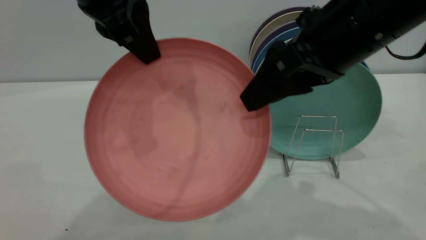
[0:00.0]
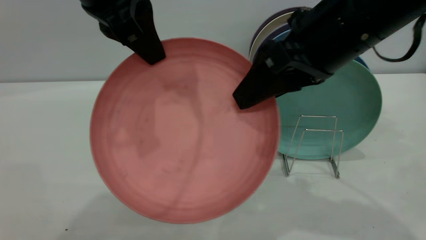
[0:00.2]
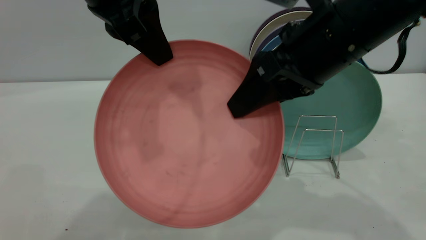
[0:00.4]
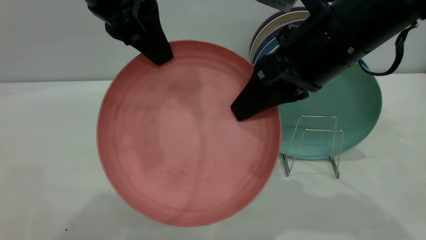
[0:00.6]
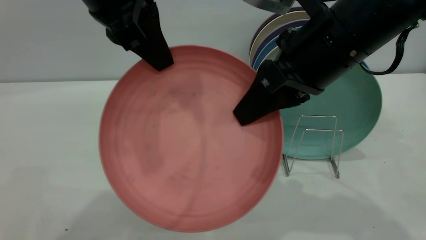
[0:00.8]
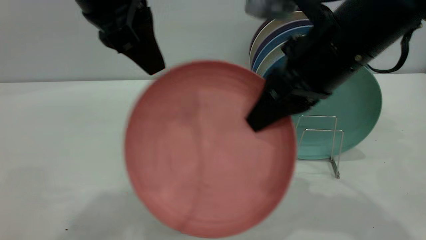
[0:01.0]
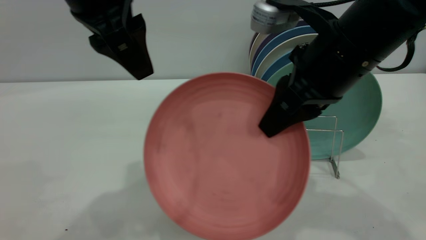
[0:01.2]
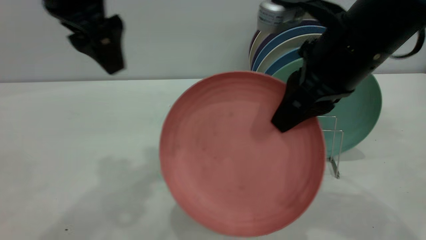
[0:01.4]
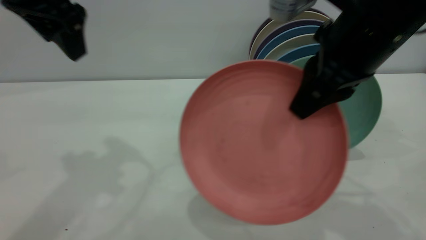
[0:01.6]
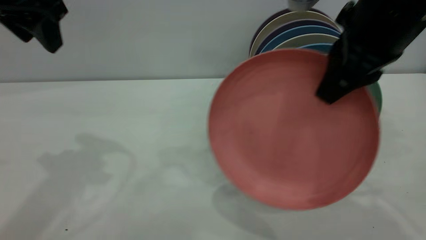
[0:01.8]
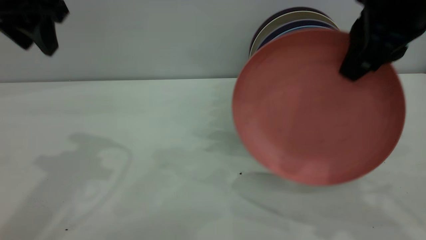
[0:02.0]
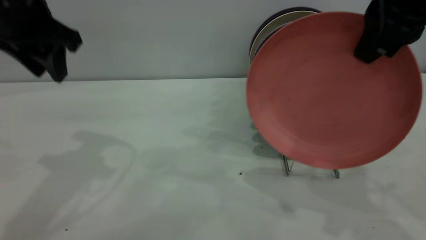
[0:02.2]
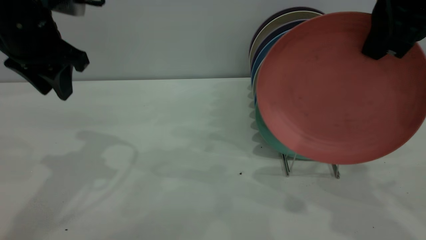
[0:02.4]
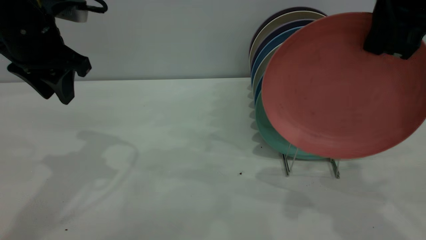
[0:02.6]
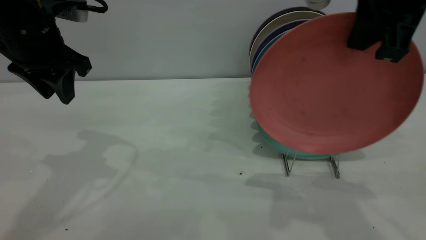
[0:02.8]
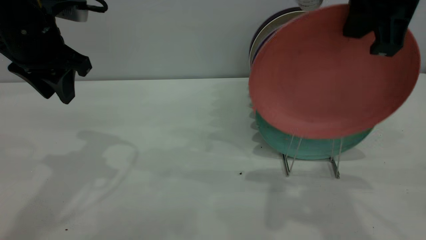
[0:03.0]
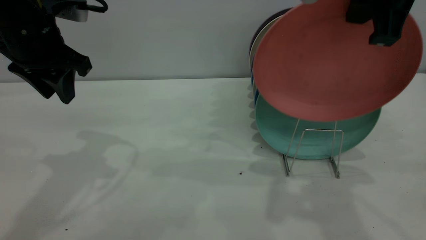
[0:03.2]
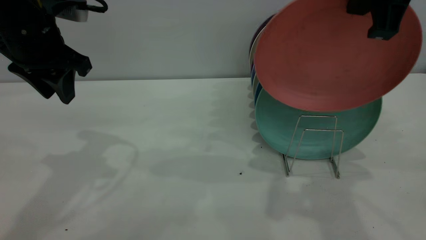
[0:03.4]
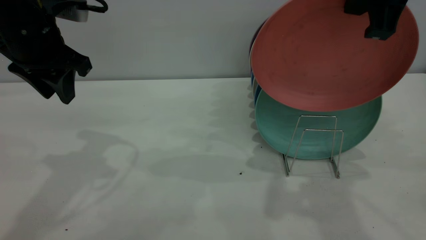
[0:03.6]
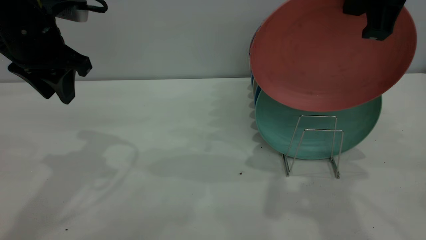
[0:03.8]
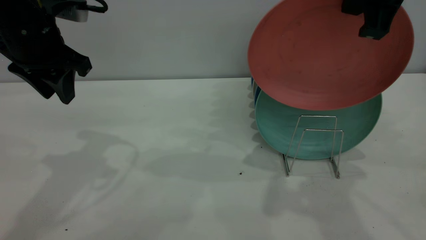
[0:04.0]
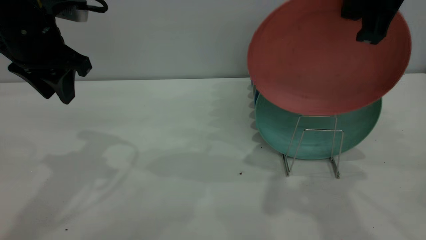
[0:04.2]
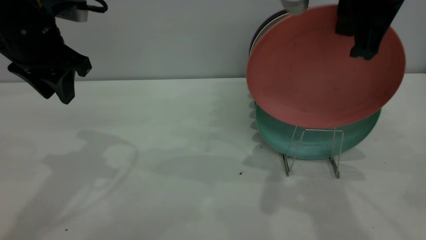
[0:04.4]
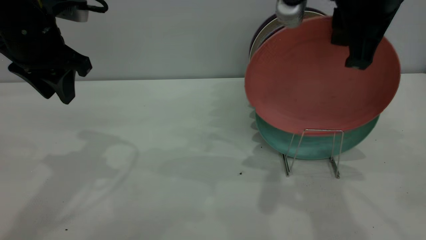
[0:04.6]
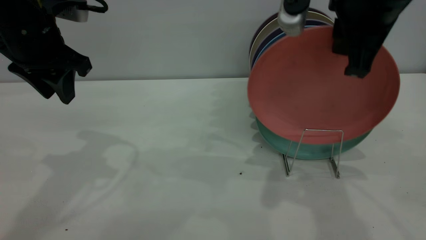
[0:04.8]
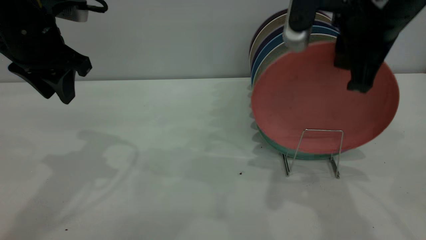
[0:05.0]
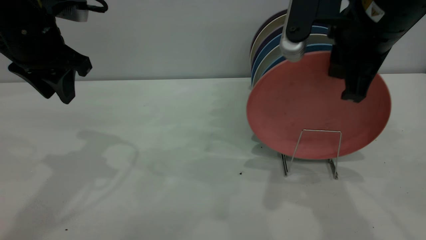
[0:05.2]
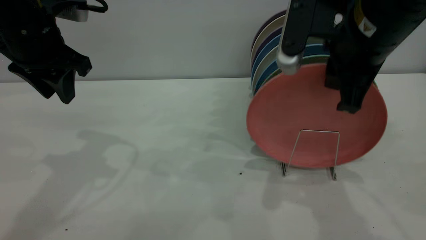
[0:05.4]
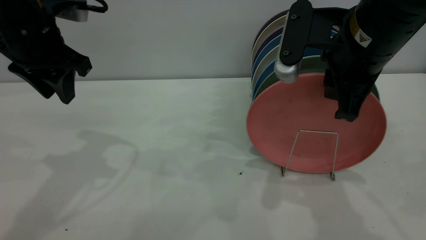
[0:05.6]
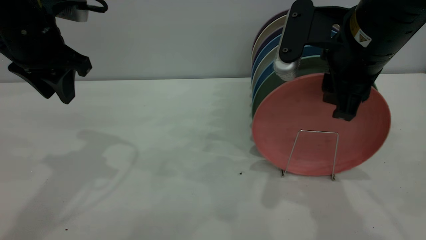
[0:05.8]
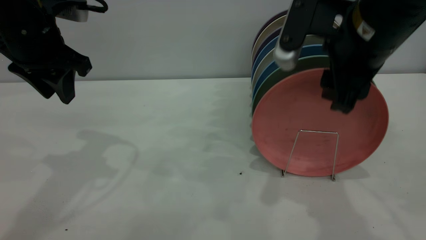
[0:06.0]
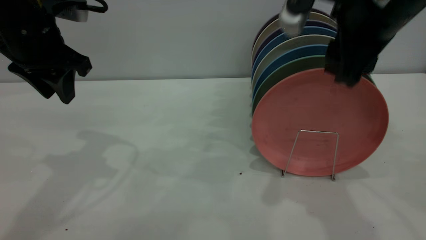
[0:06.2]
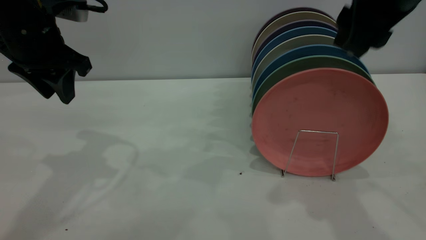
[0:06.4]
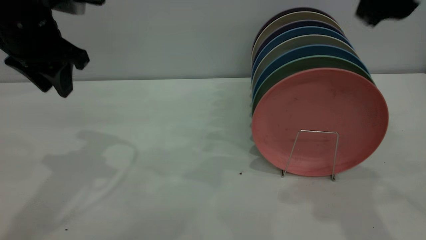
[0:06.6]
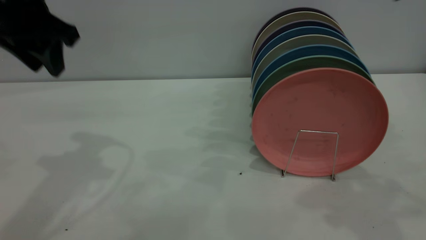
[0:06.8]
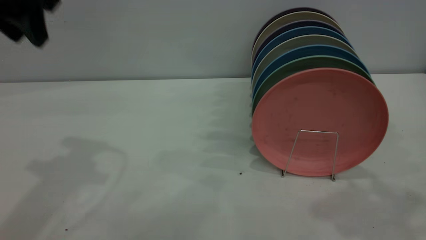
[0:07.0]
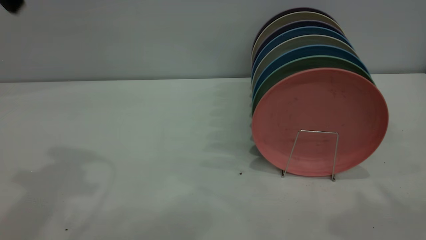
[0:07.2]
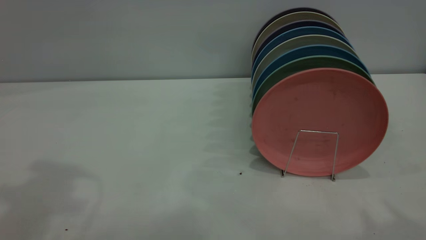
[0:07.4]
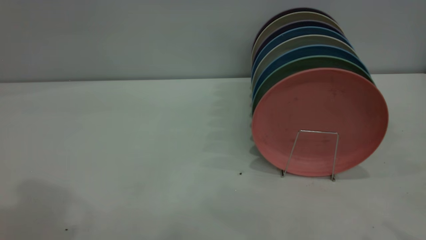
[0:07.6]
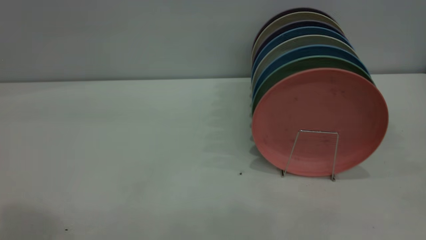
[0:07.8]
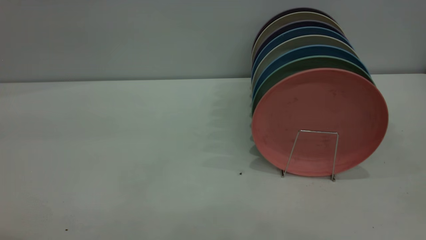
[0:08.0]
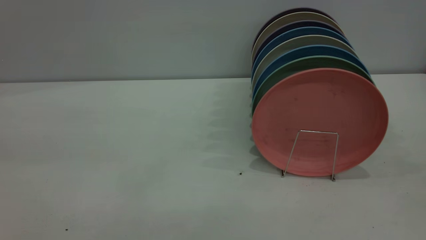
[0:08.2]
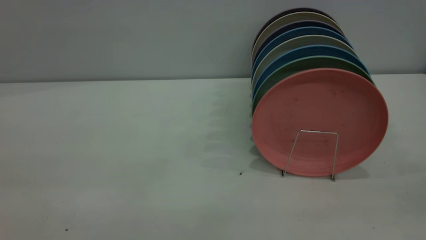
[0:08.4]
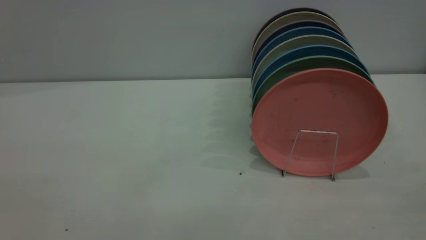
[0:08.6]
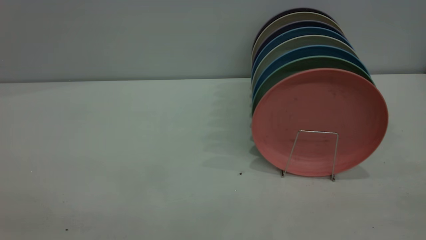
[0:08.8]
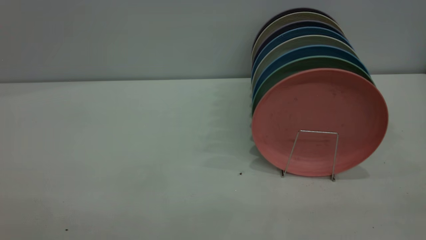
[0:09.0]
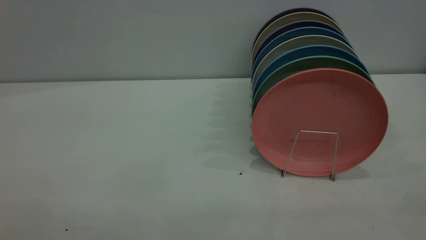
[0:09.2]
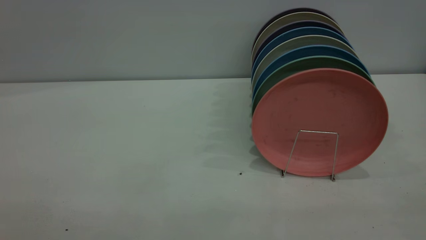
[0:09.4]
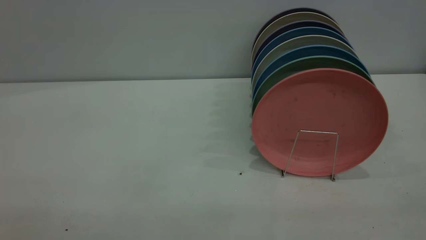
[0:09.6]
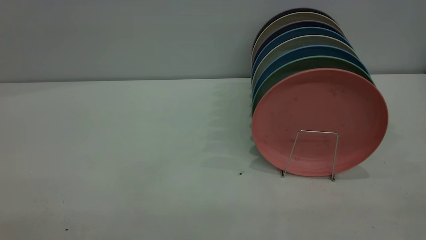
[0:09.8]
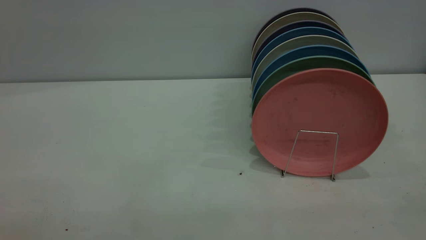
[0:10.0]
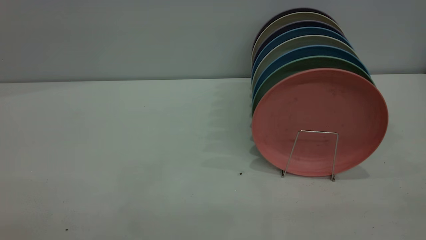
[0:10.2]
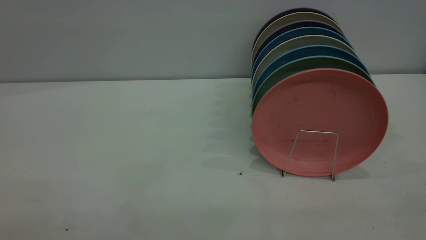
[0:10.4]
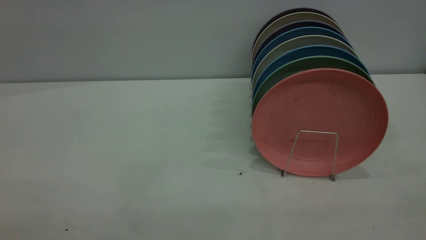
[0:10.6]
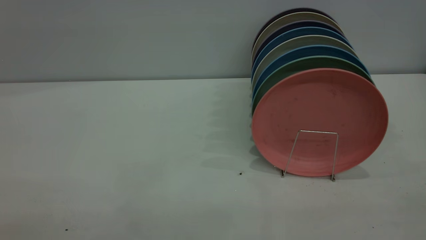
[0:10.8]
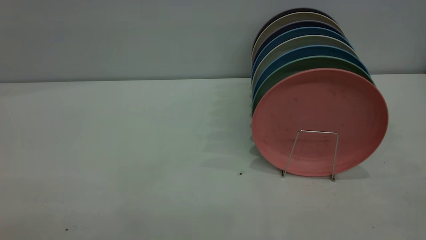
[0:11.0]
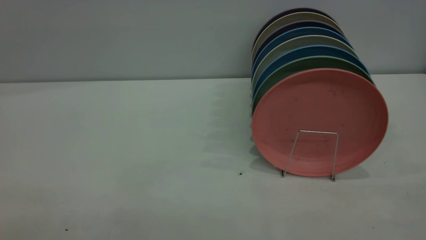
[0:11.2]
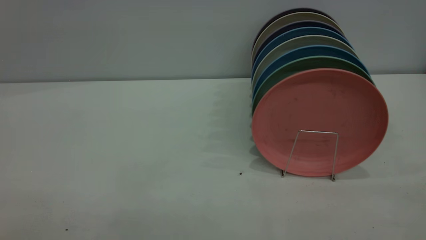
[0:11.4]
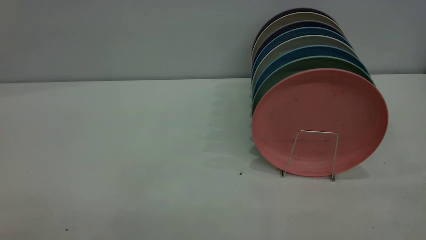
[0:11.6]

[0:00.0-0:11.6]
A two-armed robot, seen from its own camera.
Task of the whole recording: put the plate on the plate rack.
Step, 0:00.0 to 0:01.0: Pass the plate from the left gripper to the right gripper.
Step, 0:01.2 to 0:06.4: Place the plate on the shelf.
0:00.0 to 0:01.4: The right gripper closes its fingers. The left gripper opens up.
0:01.4 to 0:02.8: The right gripper travels upward by approximately 10 cm. Meanwhile the left gripper heads downward and to the left, covering approximately 10 cm, and closes its fingers.
0:02.8 to 0:04.4: The grippers move only a little.
0:04.4 to 0:05.8: The right gripper heads downward, covering roughly 10 cm, and opens its fingers.
0:05.8 to 0:07.2: The two grippers go approximately 20 cm upward and backward.

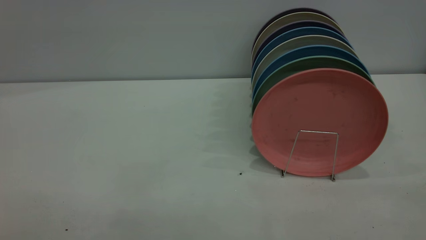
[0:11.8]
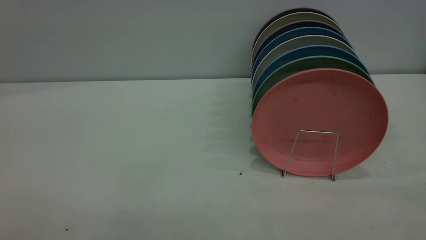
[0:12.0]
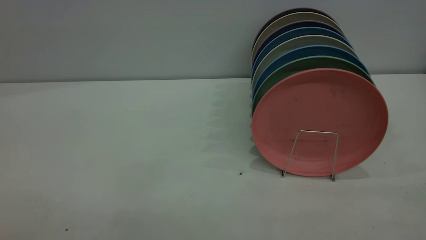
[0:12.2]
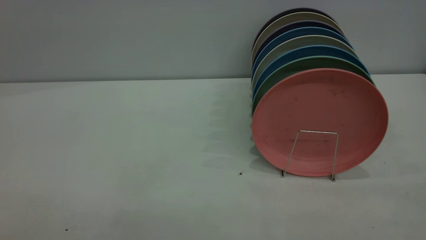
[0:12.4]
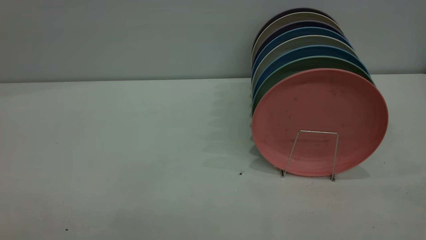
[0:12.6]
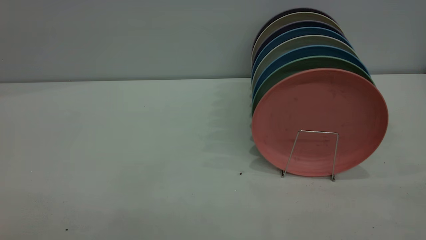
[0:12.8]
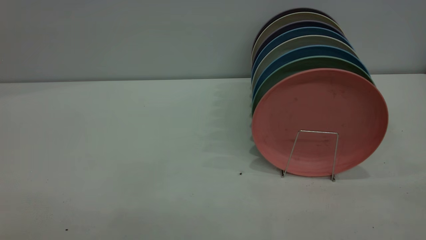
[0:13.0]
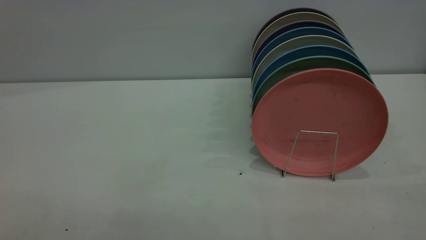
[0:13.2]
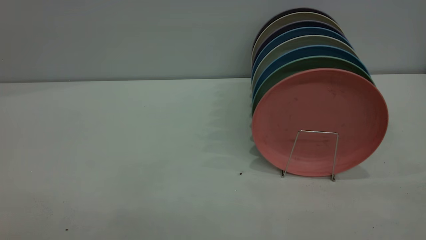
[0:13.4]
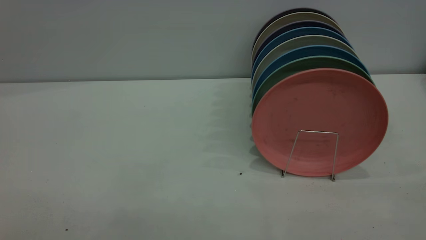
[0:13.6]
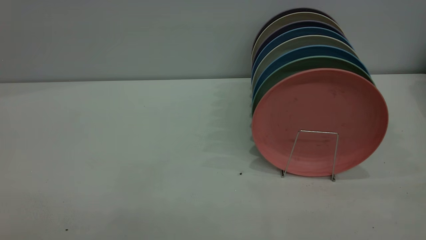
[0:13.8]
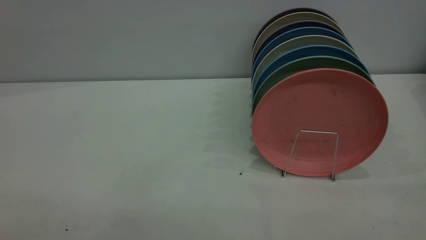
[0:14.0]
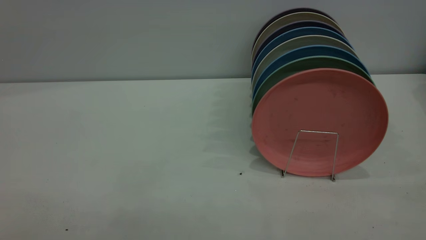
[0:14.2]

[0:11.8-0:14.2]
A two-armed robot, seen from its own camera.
Task of the whole recording: put the plate on the plate rack.
0:11.8 to 0:14.2: The two grippers keep their place.

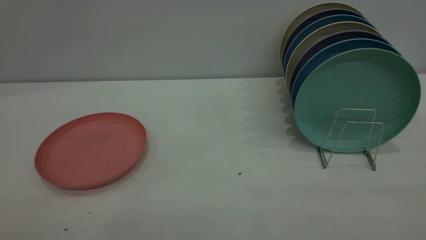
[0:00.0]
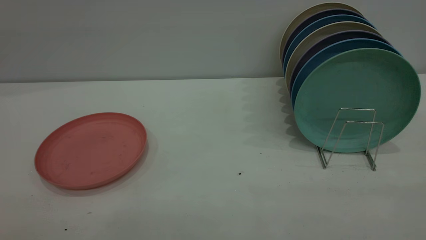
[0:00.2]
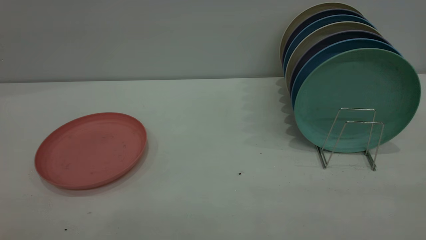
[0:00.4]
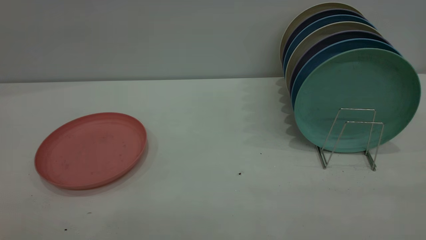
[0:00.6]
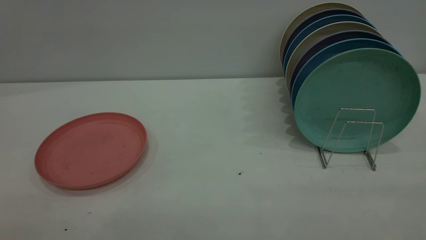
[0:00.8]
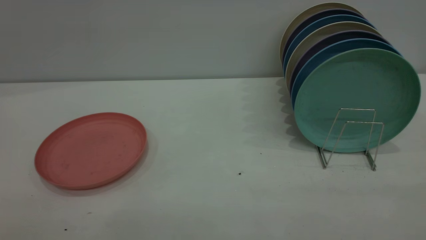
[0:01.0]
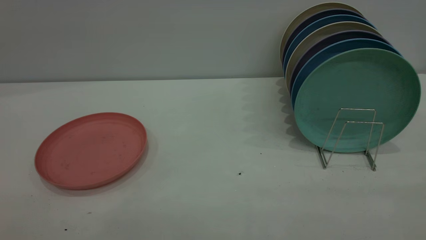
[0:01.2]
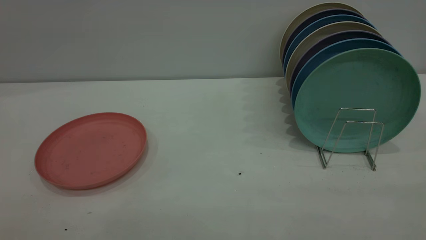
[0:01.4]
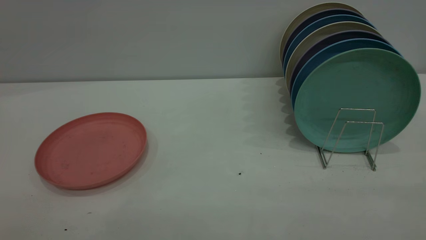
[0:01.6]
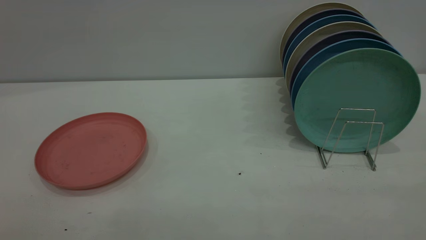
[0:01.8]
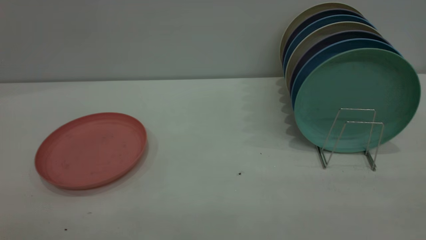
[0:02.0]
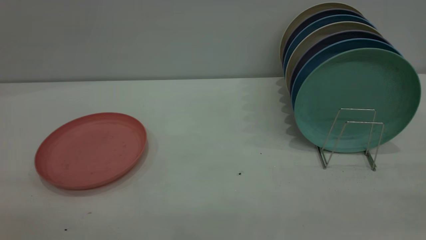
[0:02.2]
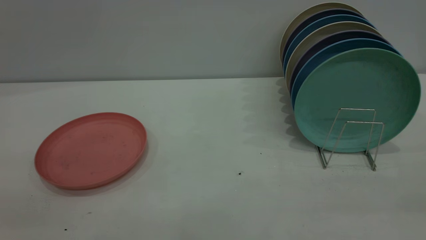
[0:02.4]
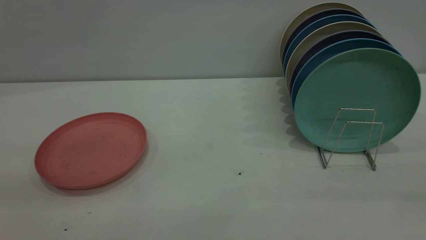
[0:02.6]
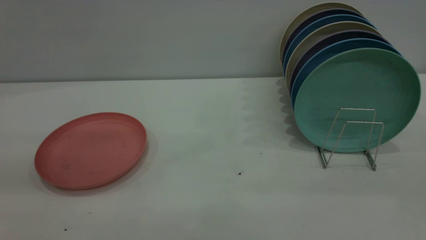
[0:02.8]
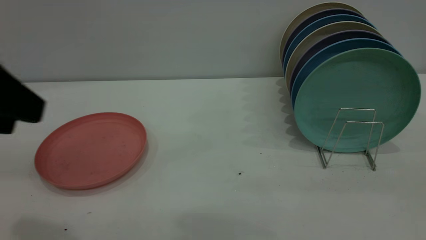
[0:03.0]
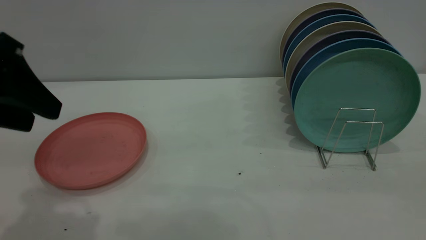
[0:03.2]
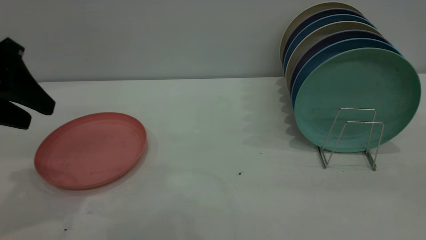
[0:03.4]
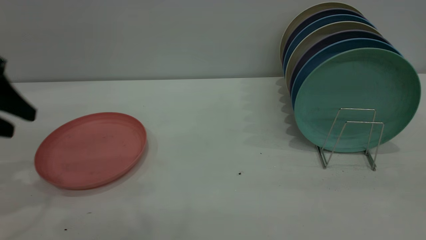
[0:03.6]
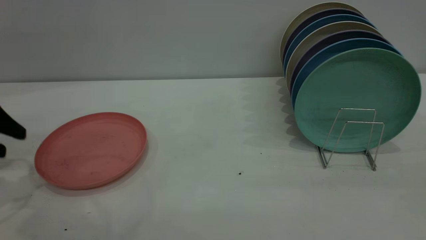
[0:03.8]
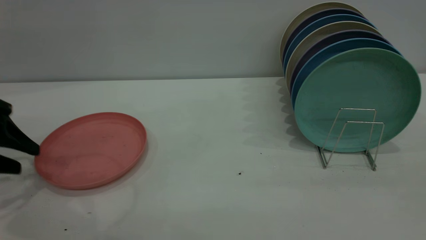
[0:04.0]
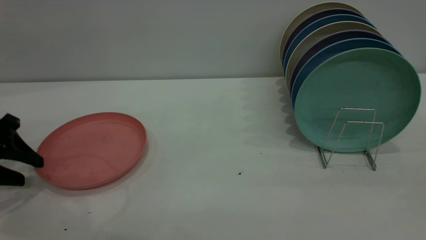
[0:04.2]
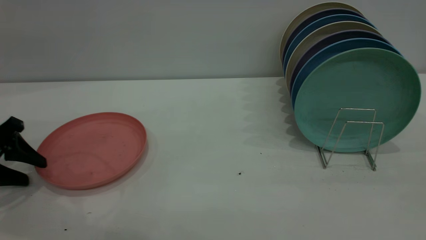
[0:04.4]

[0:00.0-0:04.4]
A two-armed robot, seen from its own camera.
Task of the whole recording: the left gripper grasp the pink plate, the left gripper pass the pink plate to the right gripper, and the right gripper place the pink plate on the plate rack.
0:01.4 to 0:03.0: The left gripper moves forward, some 20 cm.
0:03.0 to 0:04.4: The left gripper is displaced downward, to the left and forward by about 30 cm.
